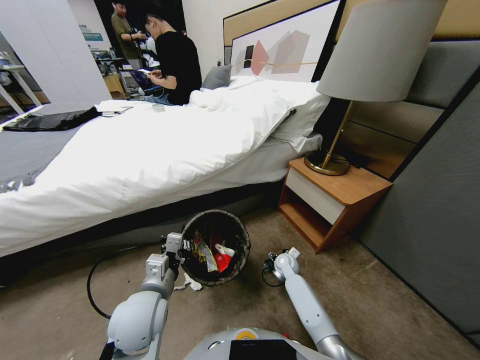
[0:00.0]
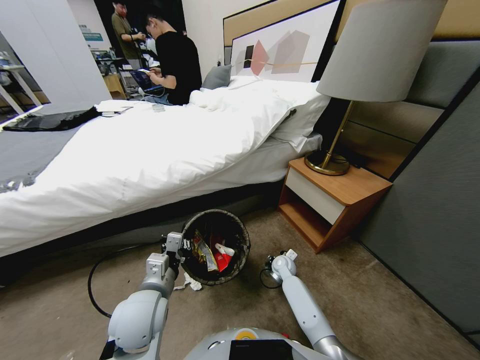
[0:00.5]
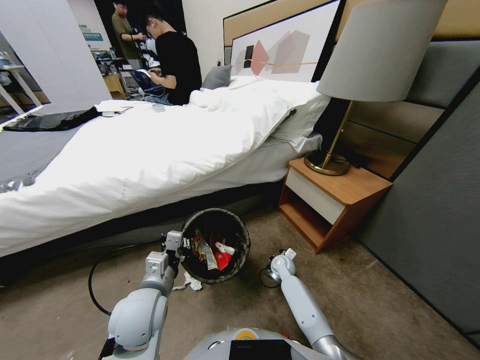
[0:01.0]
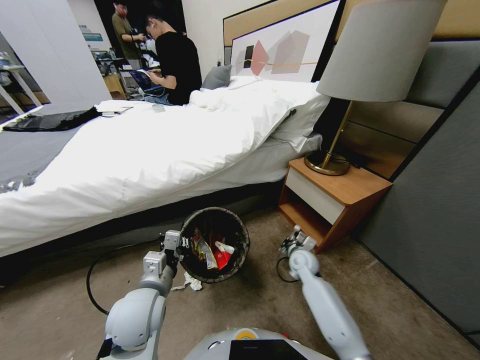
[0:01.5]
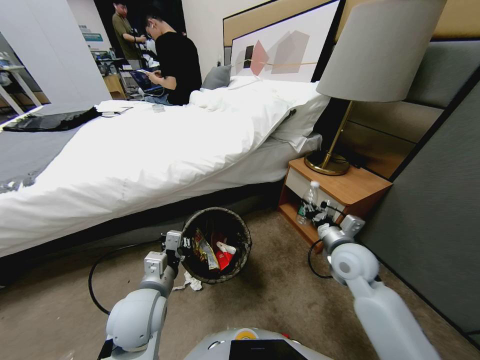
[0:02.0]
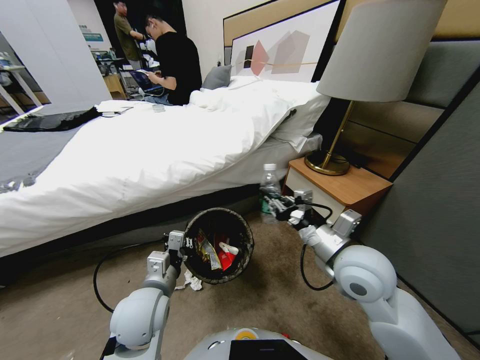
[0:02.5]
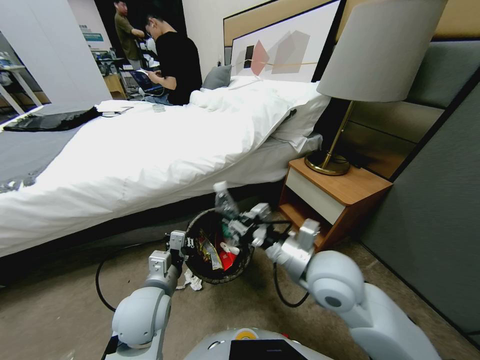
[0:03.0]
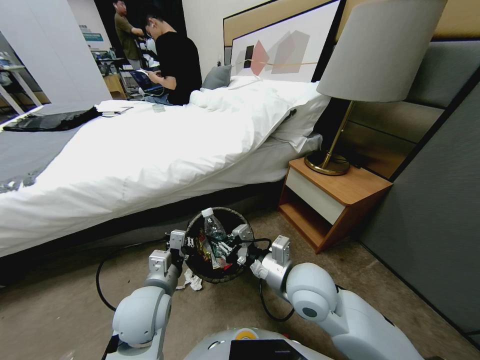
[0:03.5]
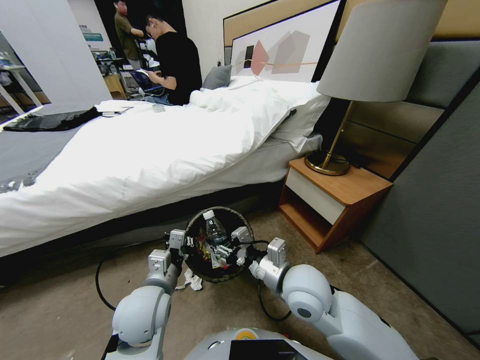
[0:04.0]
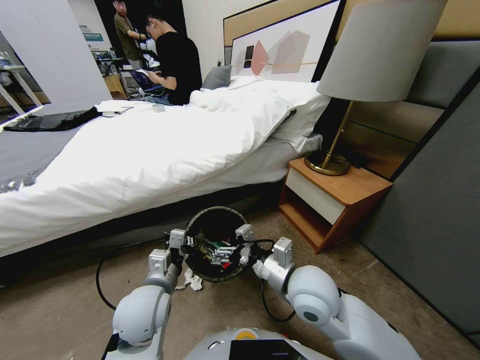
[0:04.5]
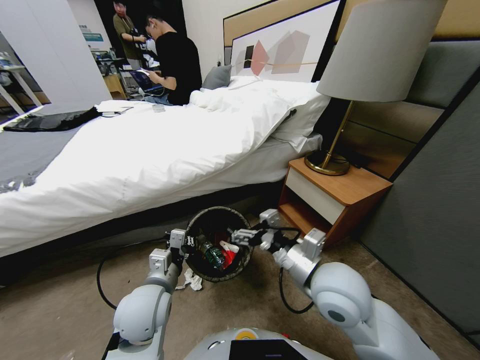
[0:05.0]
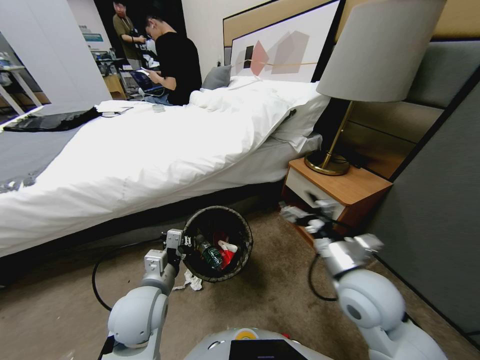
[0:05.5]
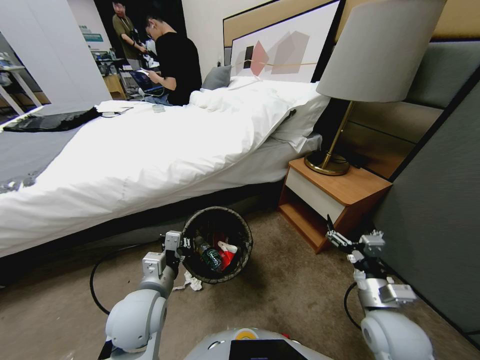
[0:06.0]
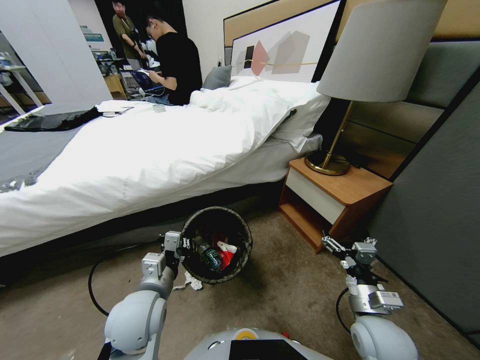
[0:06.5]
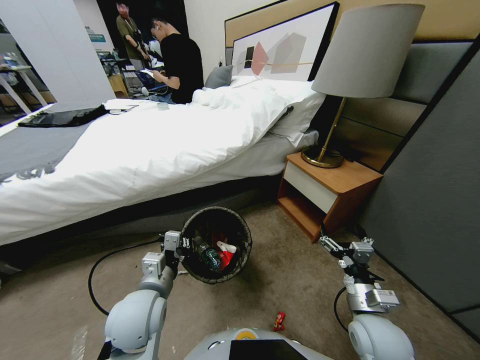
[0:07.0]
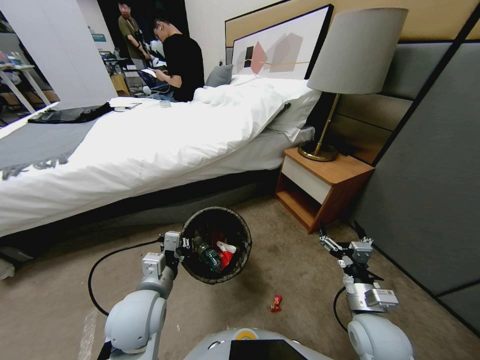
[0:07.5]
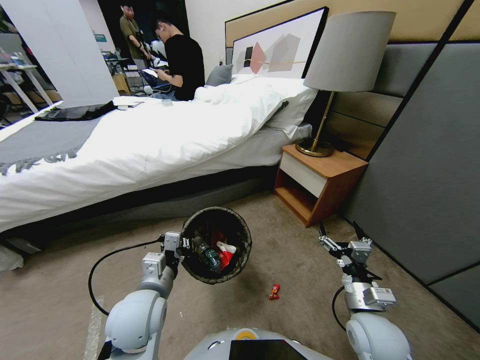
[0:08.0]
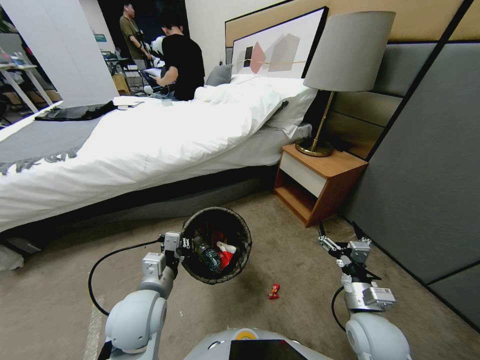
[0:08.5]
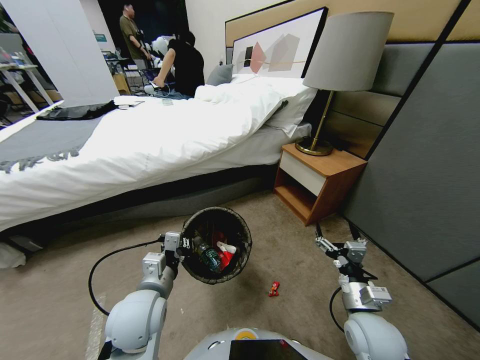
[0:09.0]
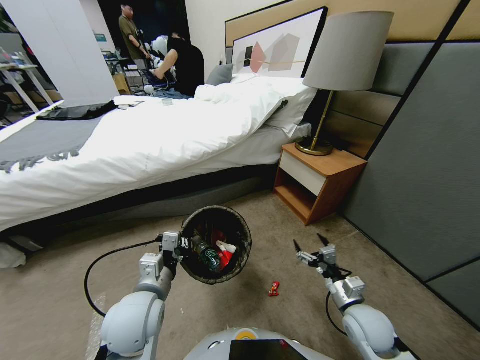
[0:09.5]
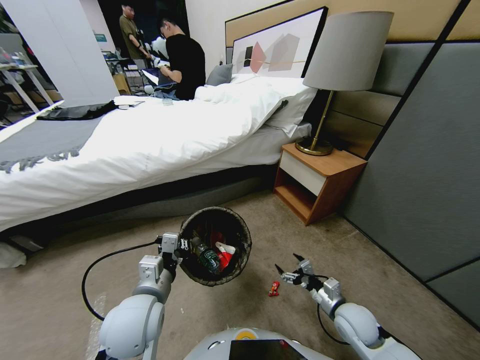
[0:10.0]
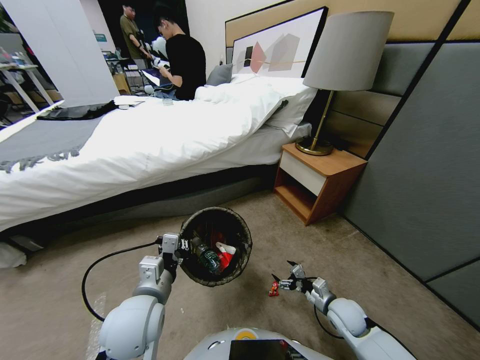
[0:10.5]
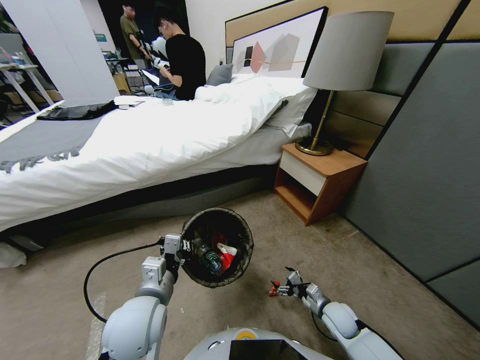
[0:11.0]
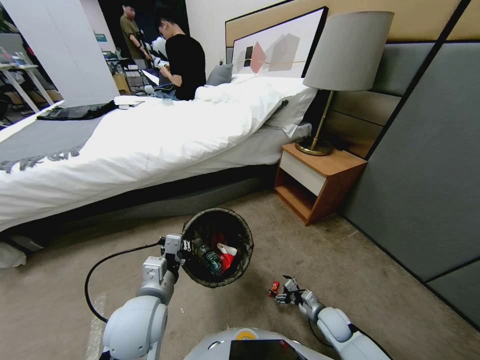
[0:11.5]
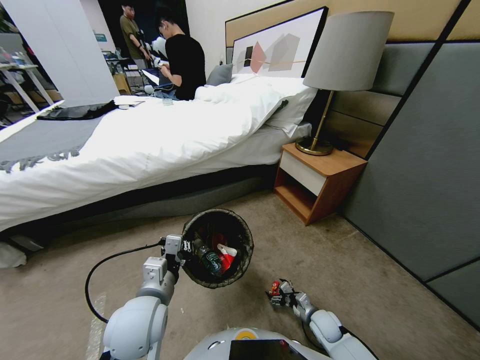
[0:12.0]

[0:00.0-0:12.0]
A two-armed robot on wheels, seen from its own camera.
Task of the whole recording: Pick up the trash bin, then pick up the garbage from the floor and place it into the trash bin.
0:00.0 to 0:02.0: The right gripper heads upward and backward, covering some 30 cm, and closes its fingers.
0:02.0 to 0:04.0: The right gripper heads to the left, covering about 15 cm, and opens.
0:04.0 to 0:06.0: The right gripper heads to the right, downward and backward, covering about 20 cm, and opens.
0:08.0 to 0:10.0: The right gripper travels downward by approximately 10 cm.
0:10.0 to 0:12.0: The right gripper heads downward, covering roughly 15 cm.

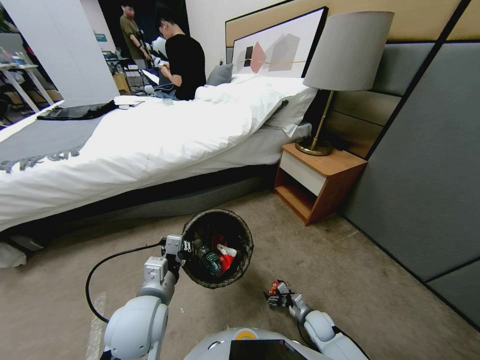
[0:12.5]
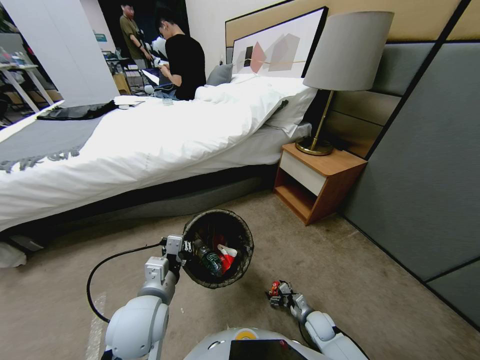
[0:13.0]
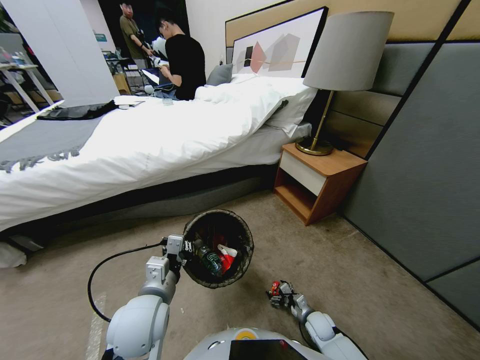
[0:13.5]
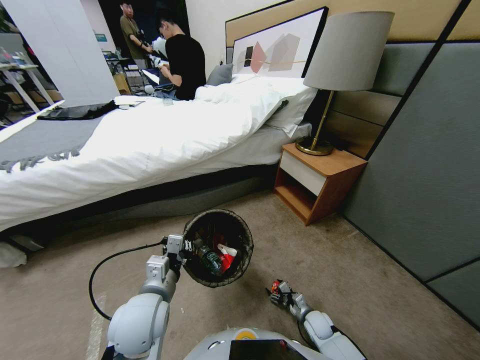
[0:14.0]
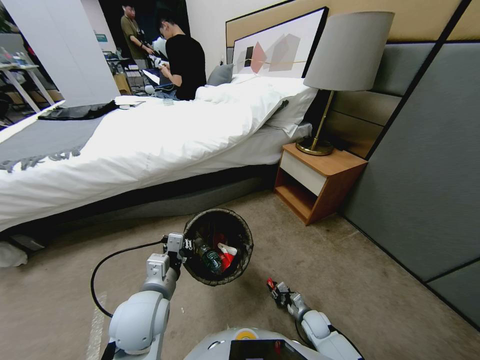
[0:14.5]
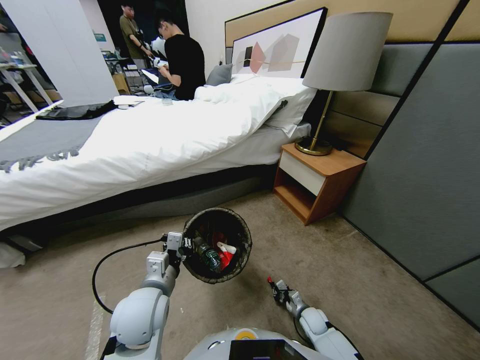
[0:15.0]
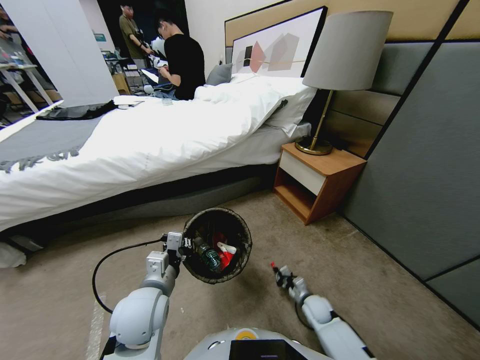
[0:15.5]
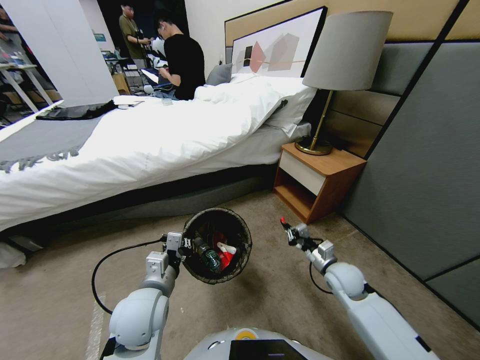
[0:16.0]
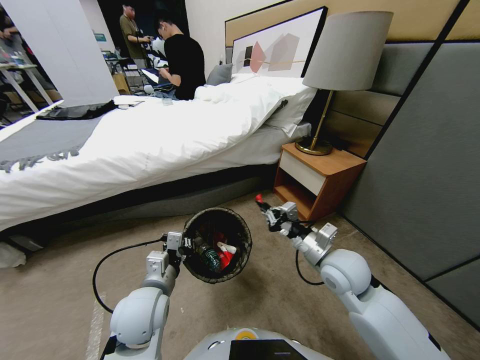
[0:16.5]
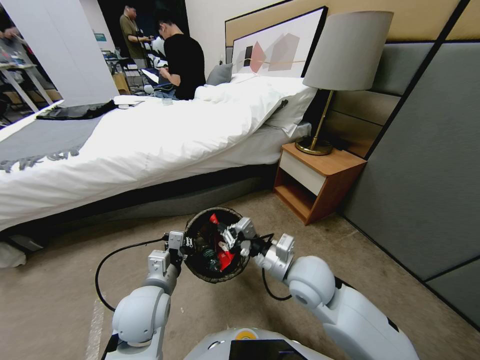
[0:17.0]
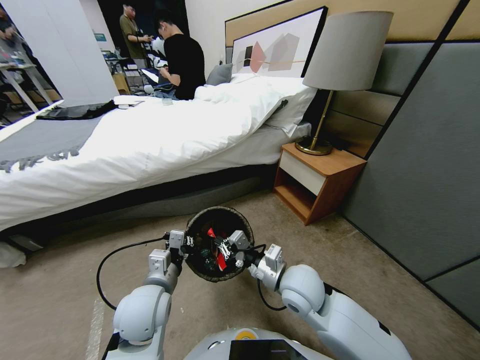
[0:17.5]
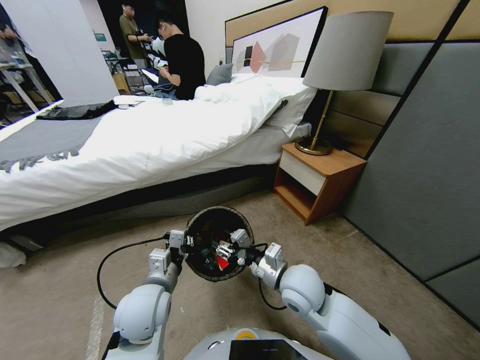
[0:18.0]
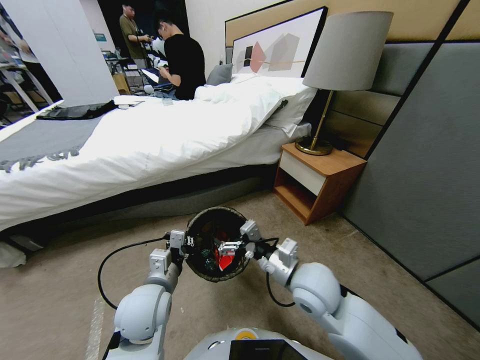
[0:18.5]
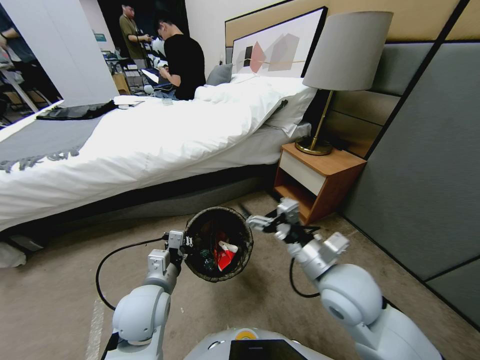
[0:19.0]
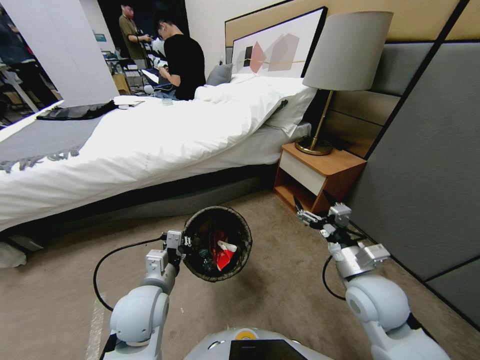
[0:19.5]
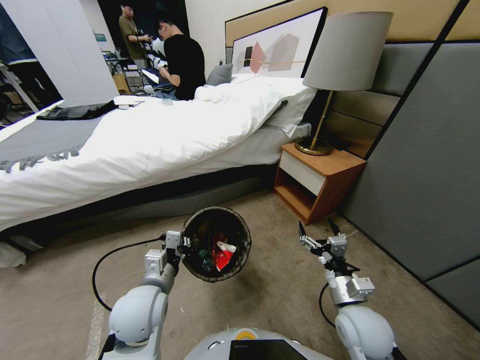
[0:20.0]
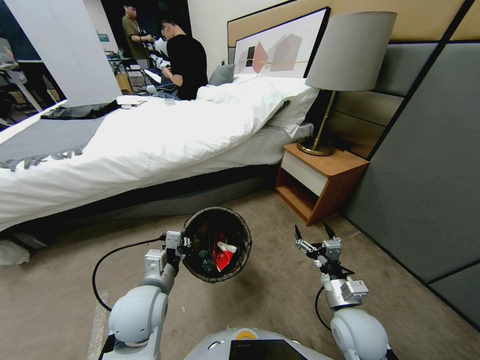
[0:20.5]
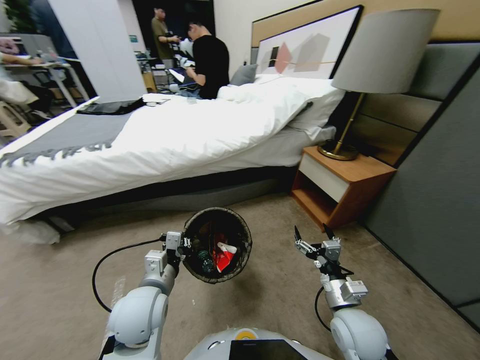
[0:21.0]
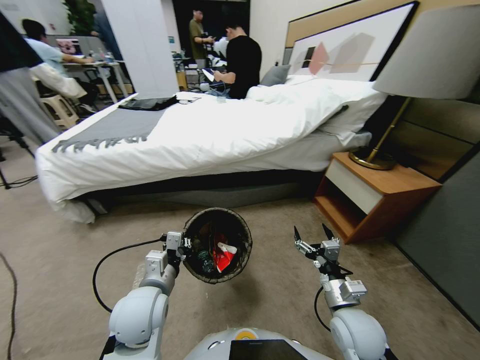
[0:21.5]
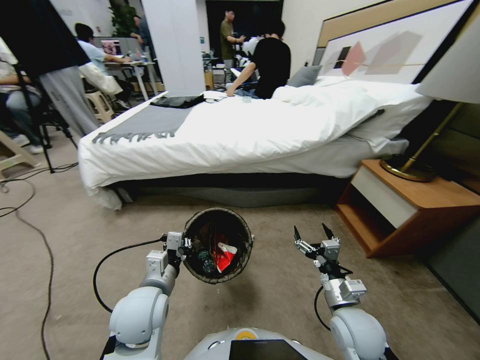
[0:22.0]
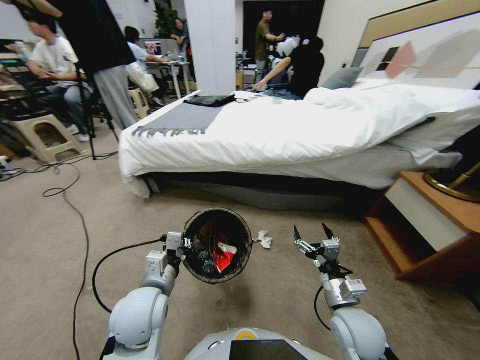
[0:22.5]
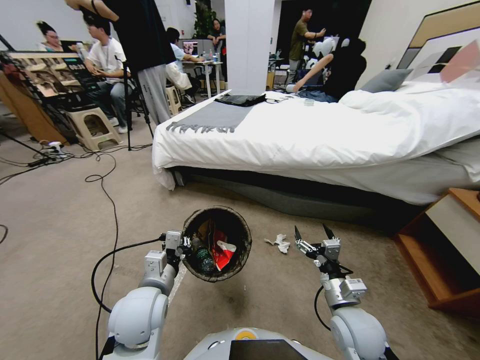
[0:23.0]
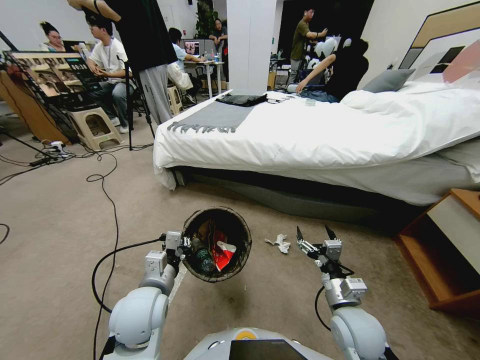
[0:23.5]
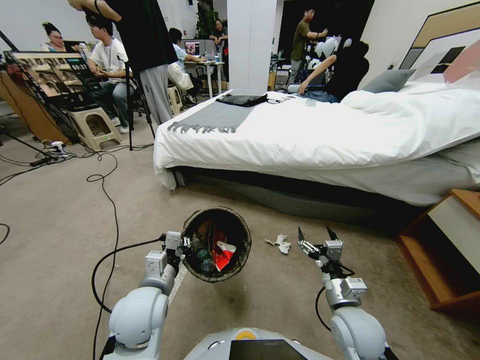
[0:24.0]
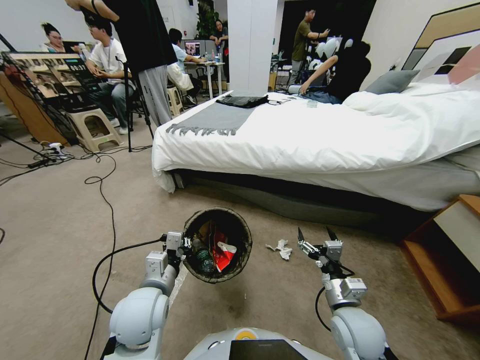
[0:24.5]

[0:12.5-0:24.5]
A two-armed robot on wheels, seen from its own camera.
Task of the whole recording: Pick up the trash bin, then pick up the garbage from the floor and place it into the trash bin.
0:12.5 to 0:14.5: The right gripper closes its fingers.
0:14.5 to 0:16.5: The right gripper travels upward by approximately 40 cm.
0:16.5 to 0:18.5: The right gripper opens up.
0:18.5 to 0:20.5: The right gripper shifts roughly 15 cm downward, to the right and backward.

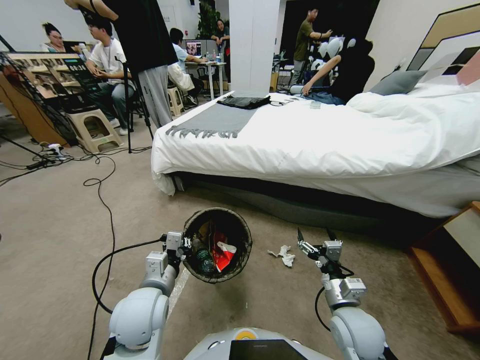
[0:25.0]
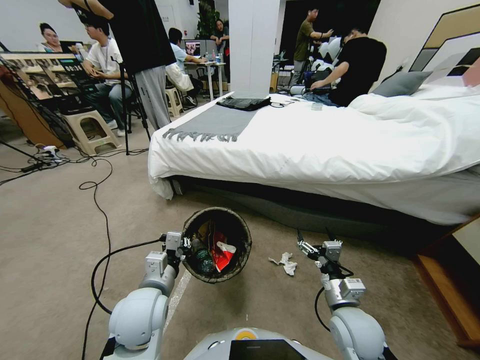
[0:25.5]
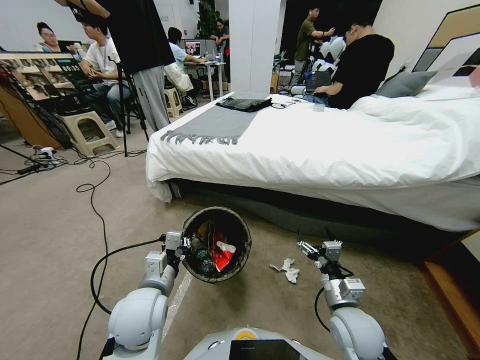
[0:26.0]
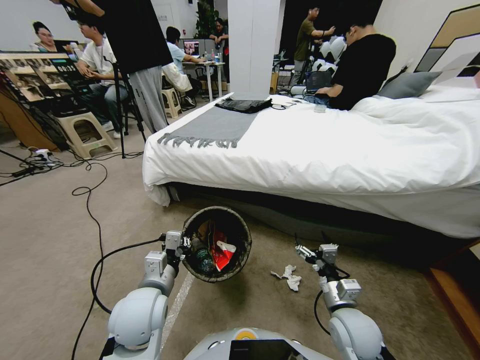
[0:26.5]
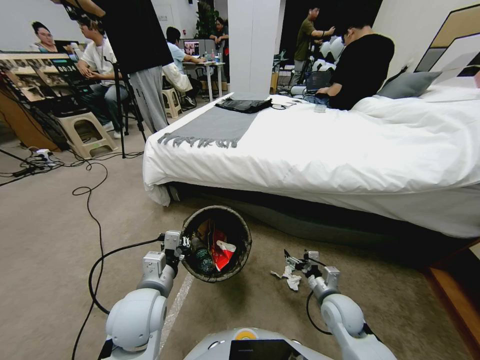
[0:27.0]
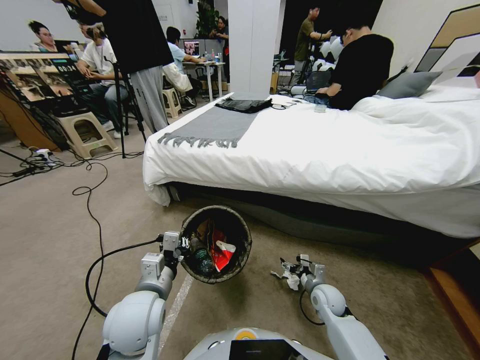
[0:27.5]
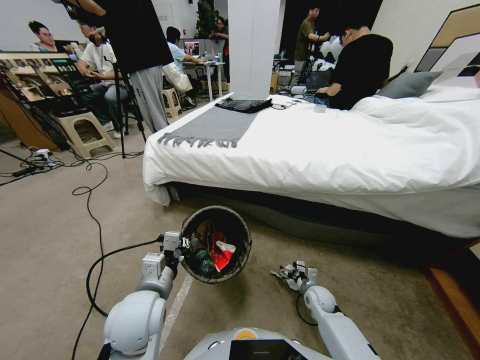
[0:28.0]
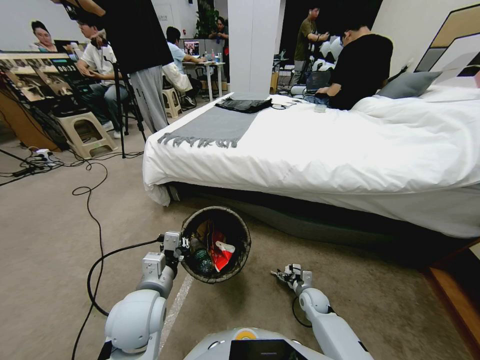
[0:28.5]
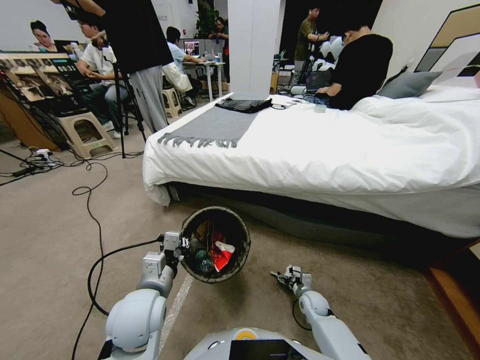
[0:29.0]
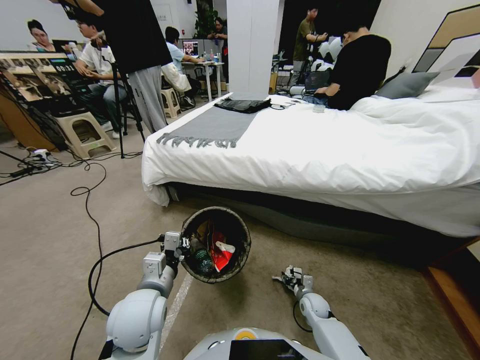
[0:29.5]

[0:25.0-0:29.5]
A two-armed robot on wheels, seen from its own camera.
Task of the whole recording: Pick up the trash bin, then pick up the garbage from the floor and place it into the trash bin.
0:25.0 to 0:27.0: The right gripper heads downward and forward, covering about 10 cm.
0:27.0 to 0:29.5: The right gripper goes about 15 cm downward, and closes.
